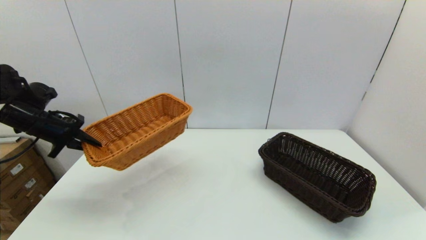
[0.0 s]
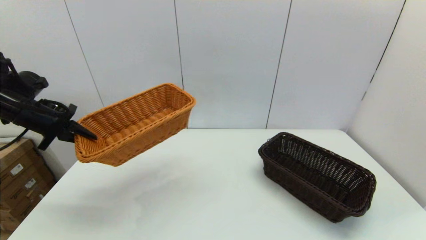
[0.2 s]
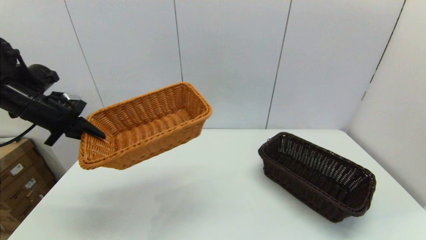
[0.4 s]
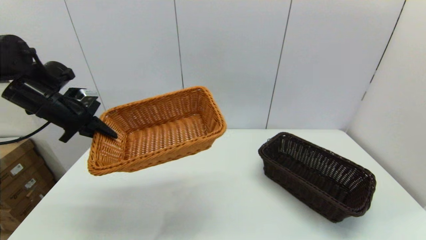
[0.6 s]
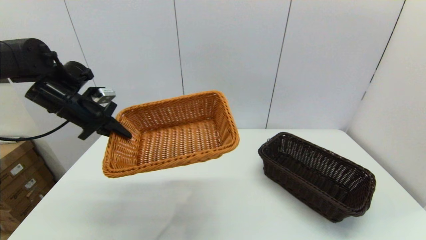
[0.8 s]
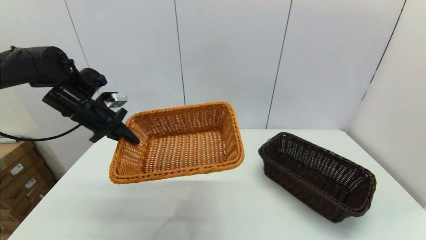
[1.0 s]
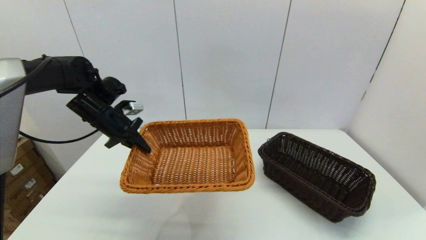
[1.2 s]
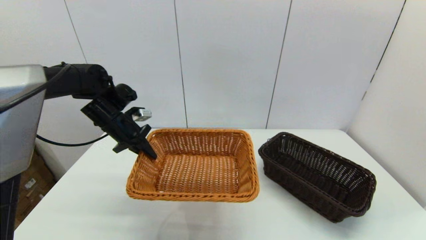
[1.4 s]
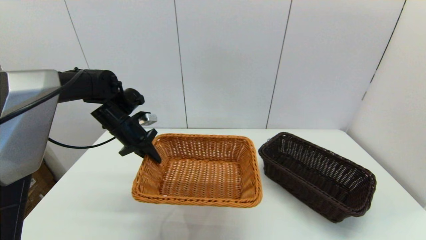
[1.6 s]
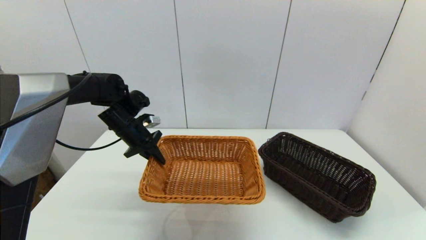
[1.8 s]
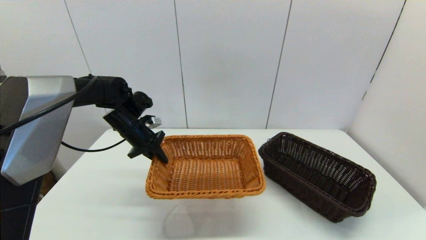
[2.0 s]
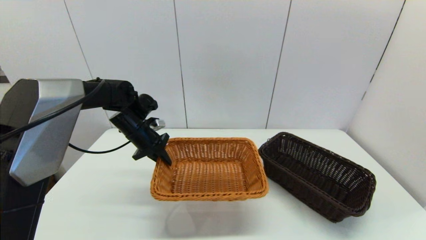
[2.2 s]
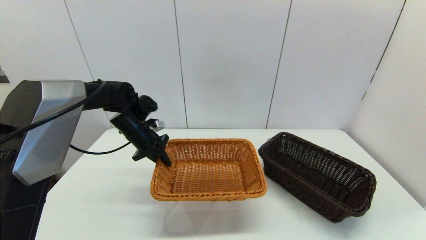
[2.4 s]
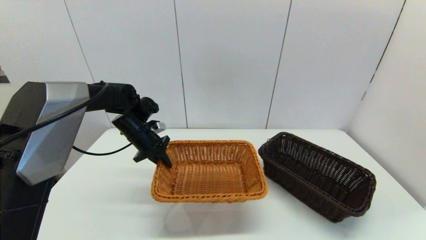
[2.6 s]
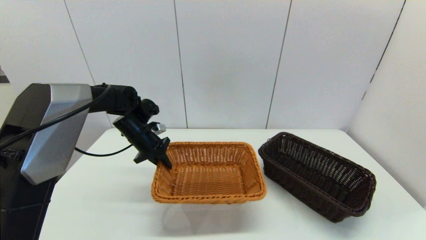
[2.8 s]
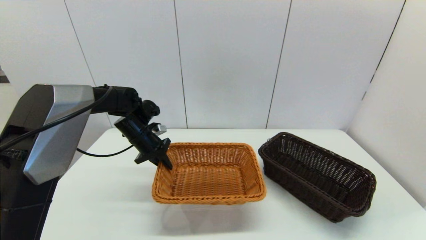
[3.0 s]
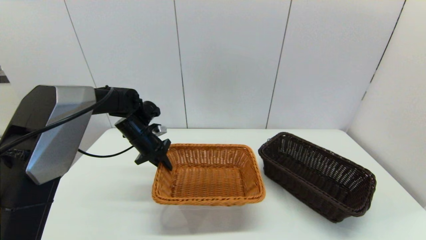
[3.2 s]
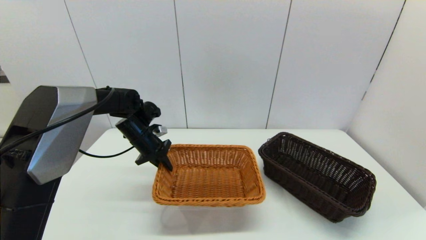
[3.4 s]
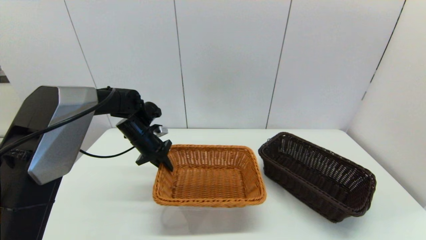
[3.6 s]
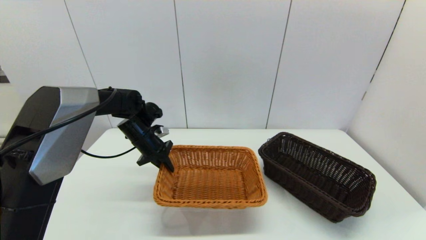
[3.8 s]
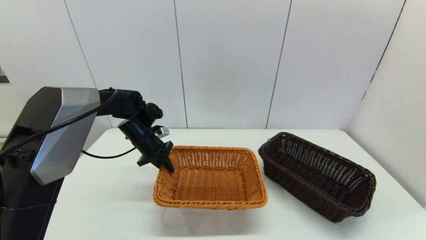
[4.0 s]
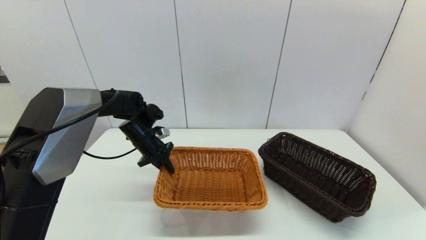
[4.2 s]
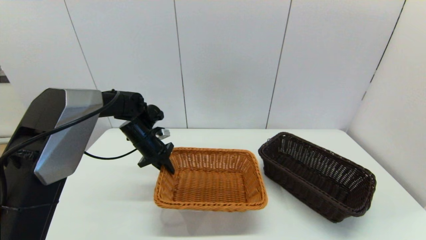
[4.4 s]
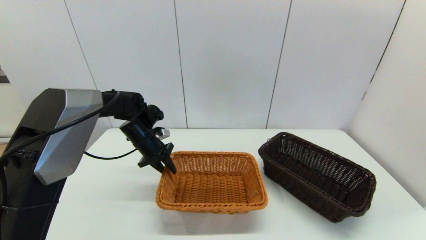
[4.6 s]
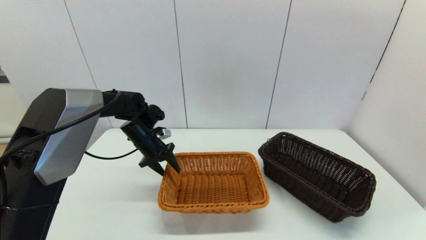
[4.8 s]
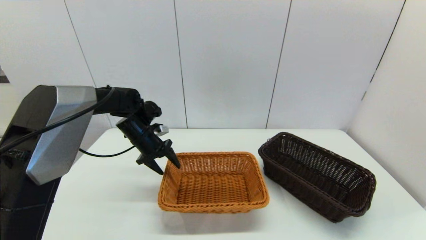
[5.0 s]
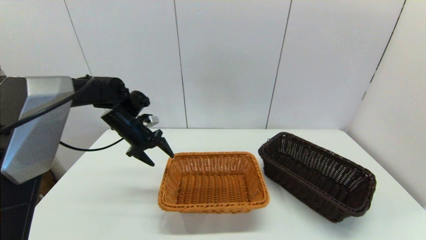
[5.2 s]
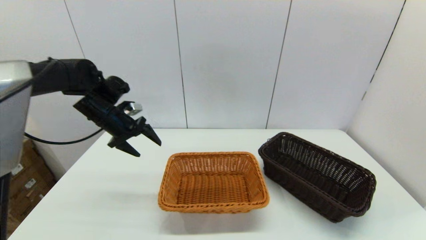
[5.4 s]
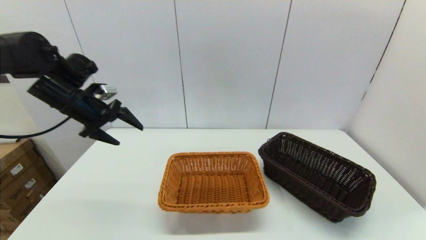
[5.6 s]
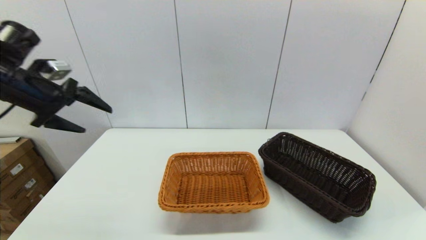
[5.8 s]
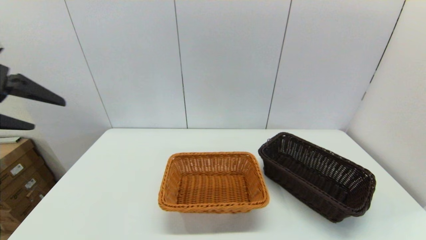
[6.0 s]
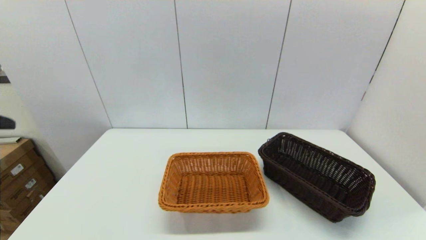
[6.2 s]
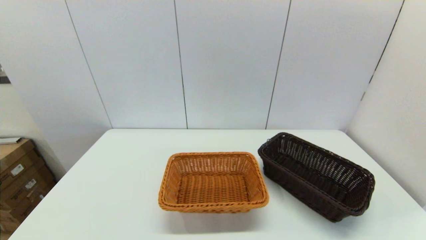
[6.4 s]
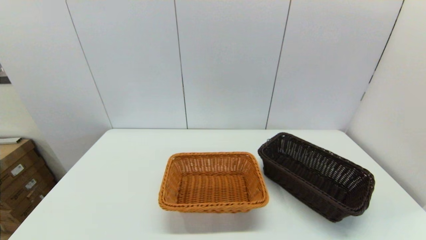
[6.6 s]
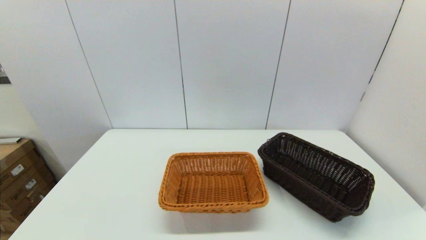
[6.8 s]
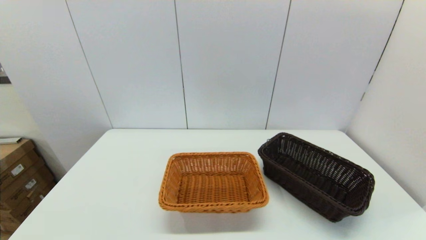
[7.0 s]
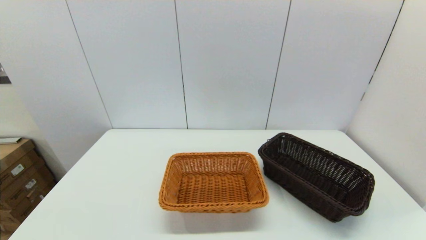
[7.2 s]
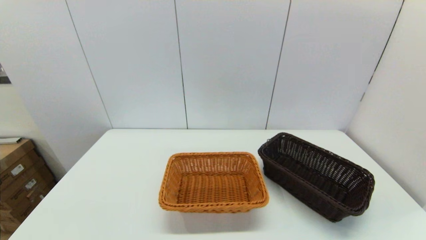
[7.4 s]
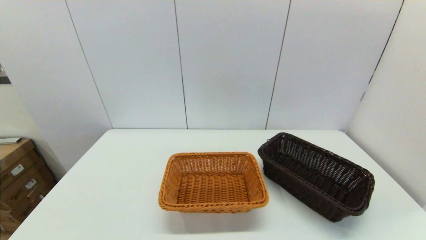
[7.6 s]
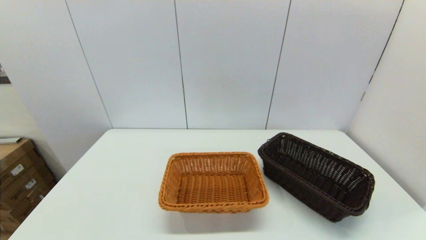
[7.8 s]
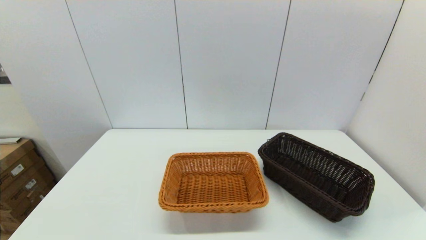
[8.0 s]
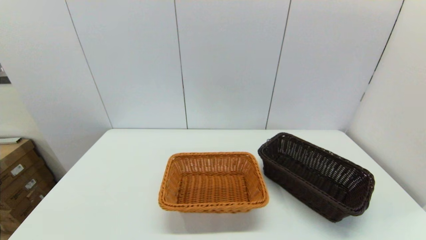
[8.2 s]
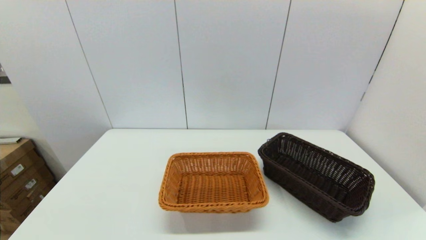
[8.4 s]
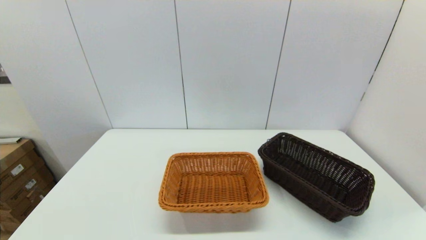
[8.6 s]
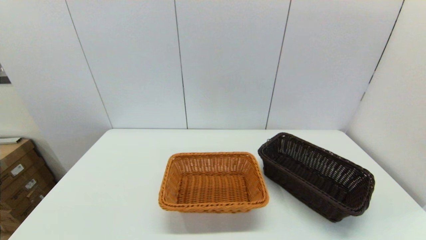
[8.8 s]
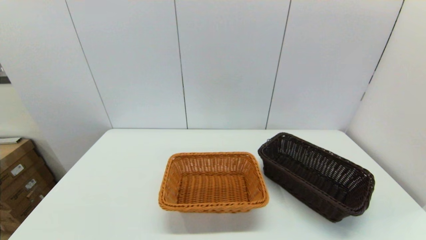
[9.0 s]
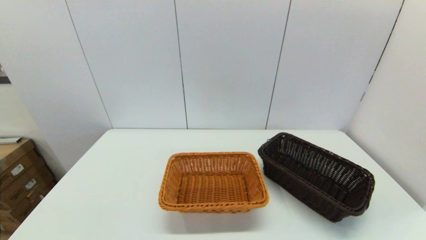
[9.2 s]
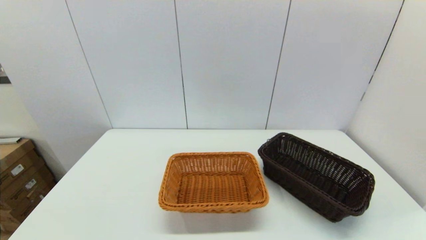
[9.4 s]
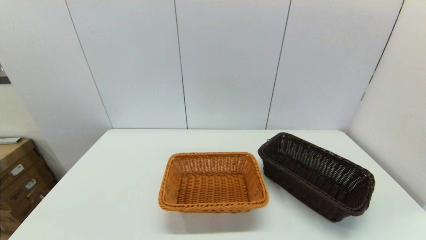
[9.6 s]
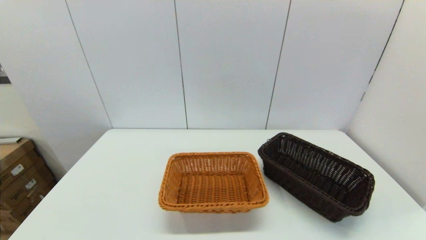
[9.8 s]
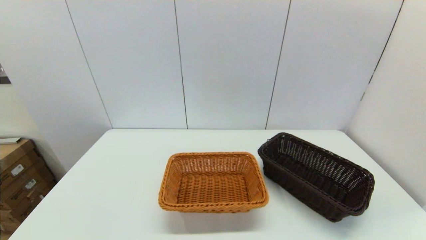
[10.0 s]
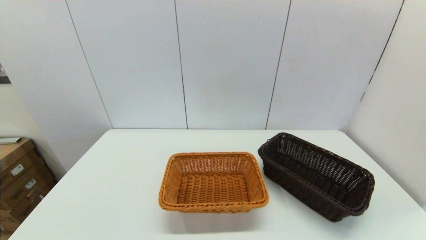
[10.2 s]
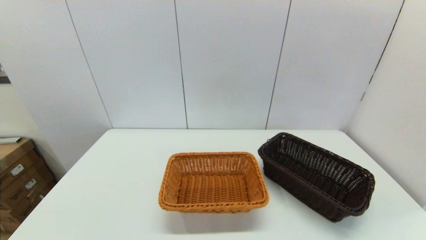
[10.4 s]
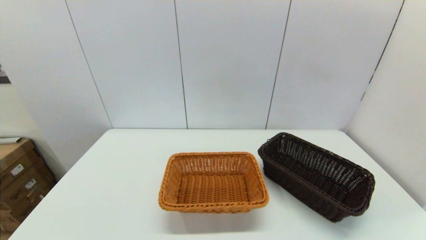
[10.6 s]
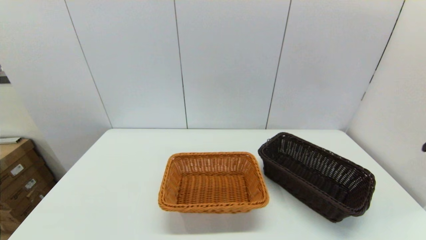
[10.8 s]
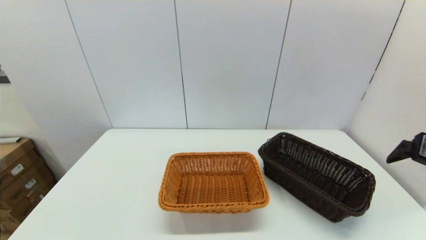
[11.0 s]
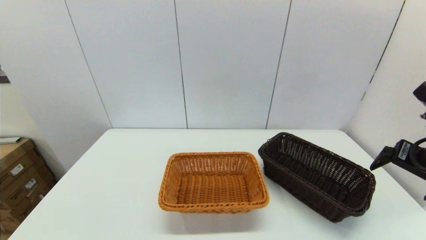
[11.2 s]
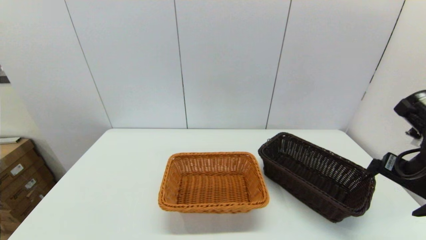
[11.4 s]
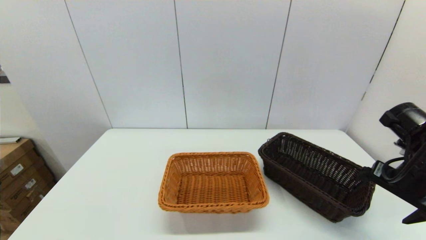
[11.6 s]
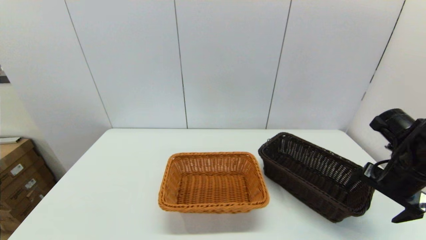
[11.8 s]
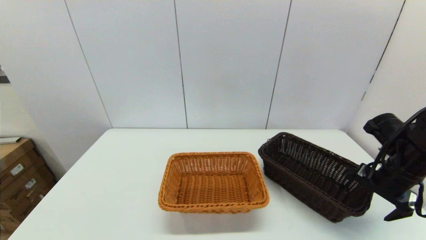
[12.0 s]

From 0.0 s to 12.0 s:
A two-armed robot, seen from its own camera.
Task of the whole recording: stack a basket on top of another basket.
Step, from 0.0 s to 5.4 s: Place the light basket on the middle of the table with the left gripper.
From 0.0 s to 1.6 s: The left gripper shifts approximately 15 cm to the right.
From 1.6 s to 3.0 s: The left gripper changes place by roughly 5 cm.
From 3.0 s to 4.4 s: The grippers move only a little.
From 4.4 s to 6.0 s: The left gripper moves upward, backward and to the left, some 35 cm, and opens.
From 6.0 s to 7.6 s: The left gripper shifts some 30 cm backward and downward.
From 10.4 s to 12.0 s: The right gripper is displaced forward and downward by roughly 25 cm.

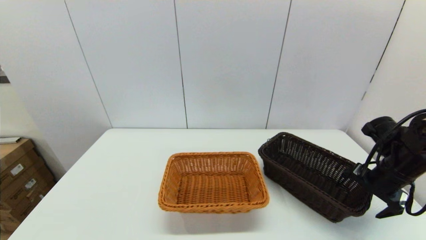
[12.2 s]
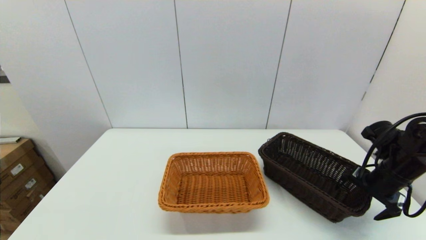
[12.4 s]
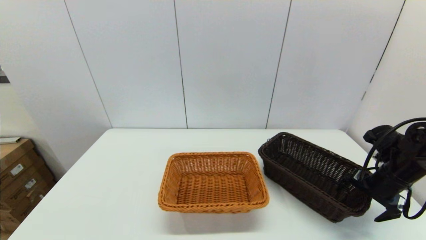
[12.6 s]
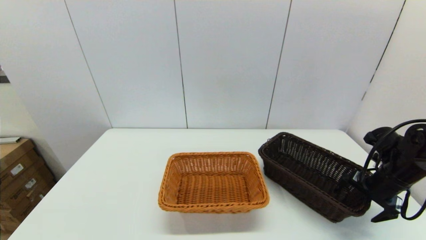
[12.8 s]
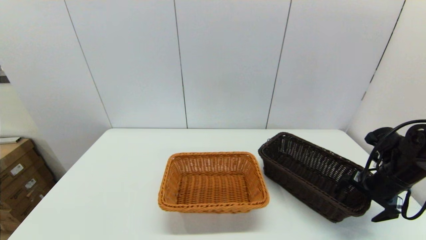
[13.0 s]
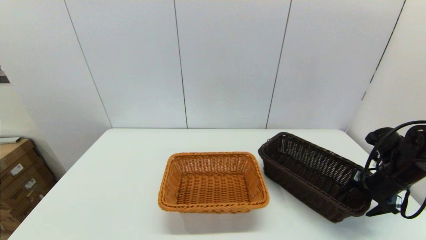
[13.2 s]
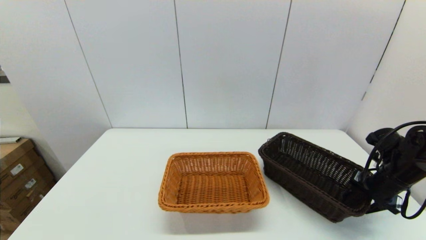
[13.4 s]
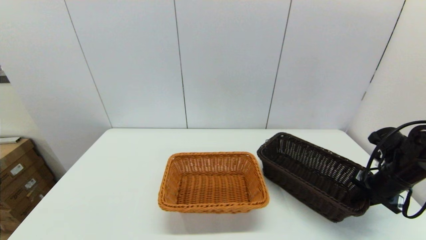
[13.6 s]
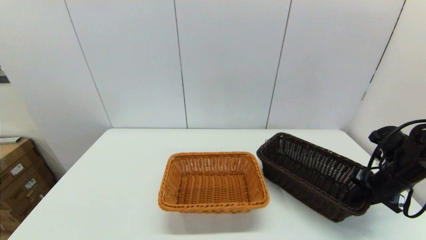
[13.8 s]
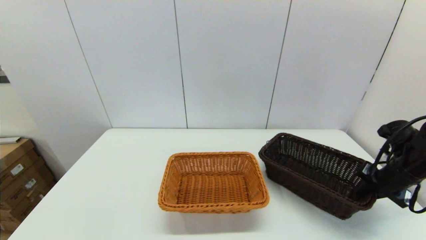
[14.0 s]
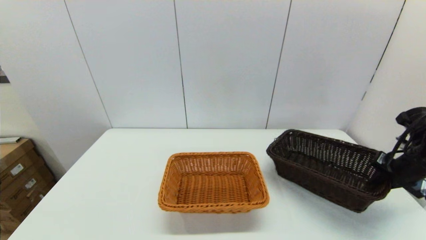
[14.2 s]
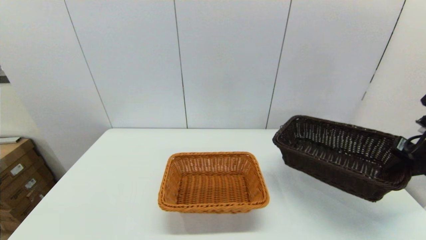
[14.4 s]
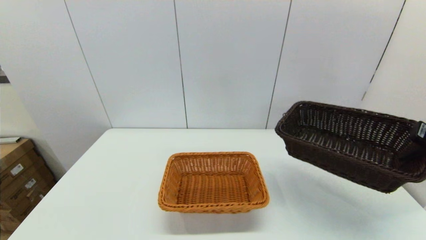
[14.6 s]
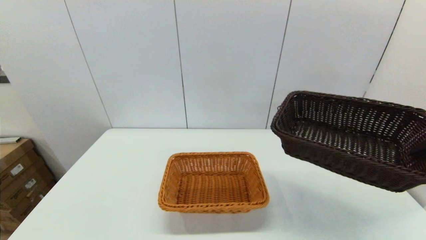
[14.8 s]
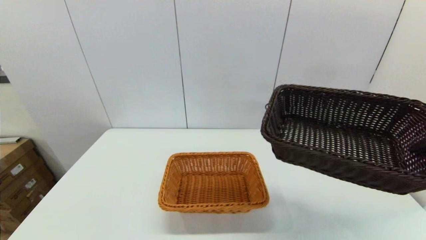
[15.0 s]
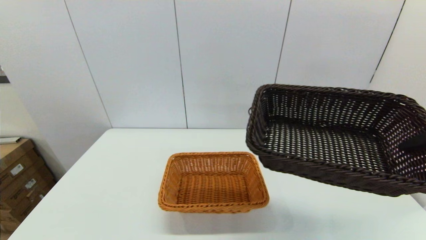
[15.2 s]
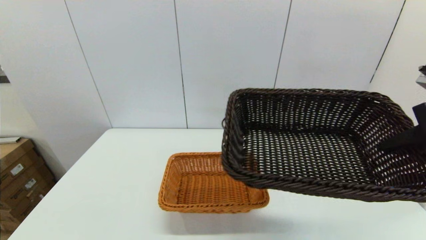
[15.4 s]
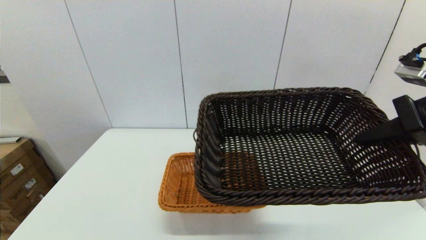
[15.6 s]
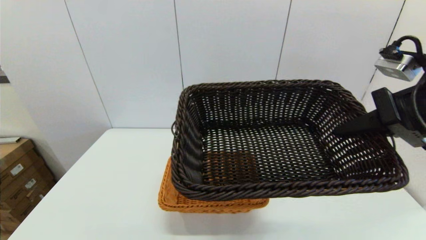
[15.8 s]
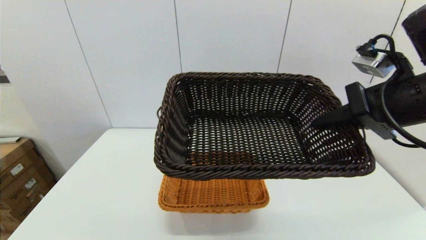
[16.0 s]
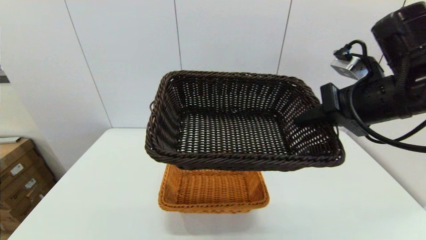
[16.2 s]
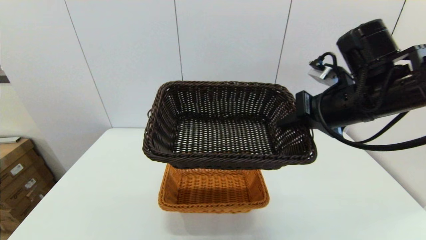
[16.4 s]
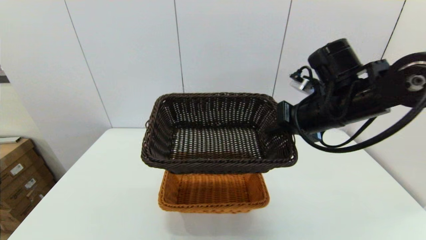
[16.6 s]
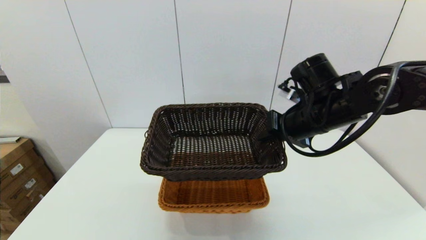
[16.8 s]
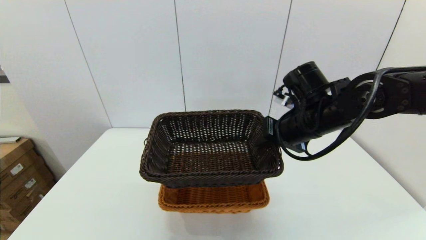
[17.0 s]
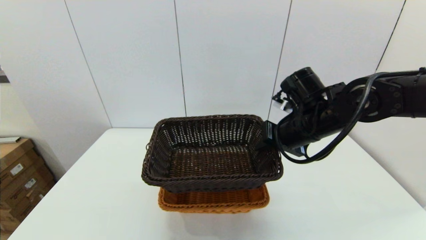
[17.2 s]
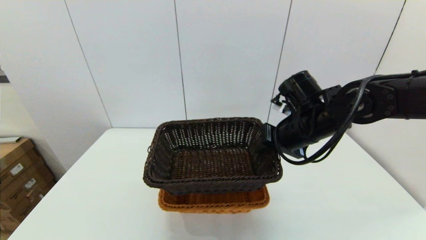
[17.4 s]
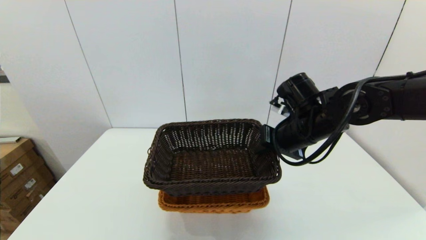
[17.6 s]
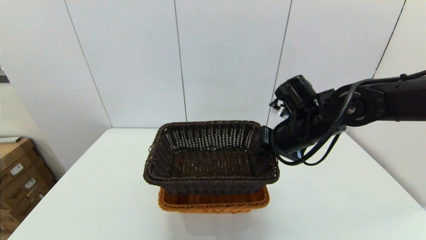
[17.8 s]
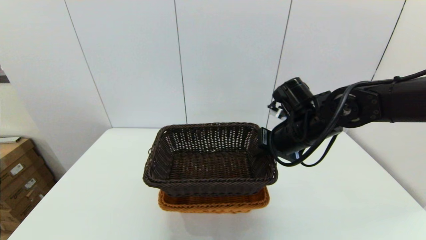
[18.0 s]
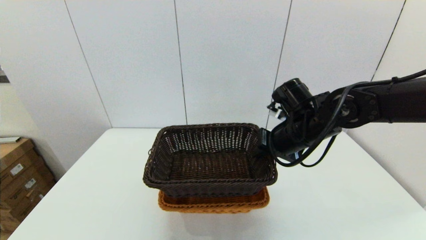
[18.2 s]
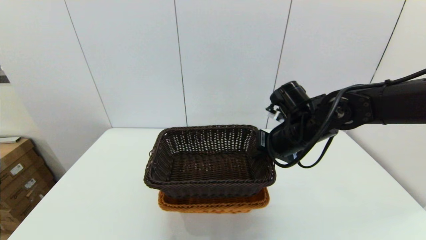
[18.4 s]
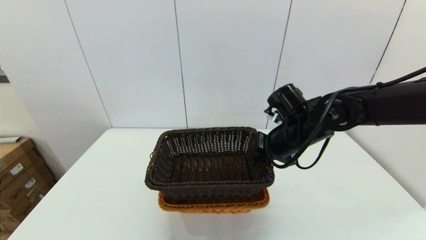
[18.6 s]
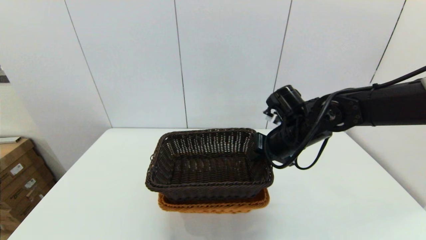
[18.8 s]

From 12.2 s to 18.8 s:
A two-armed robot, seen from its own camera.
Task of the whole recording: stack a basket on top of another basket.
From 12.2 s to 13.8 s: The right gripper closes its fingers.
From 13.8 s to 15.4 s: The right gripper moves upward and backward, about 25 cm.
From 15.4 s to 17.2 s: The right gripper is displaced to the left, forward and downward by some 20 cm.
From 17.2 s to 18.8 s: The grippers stay close to where they were, moving slightly.
